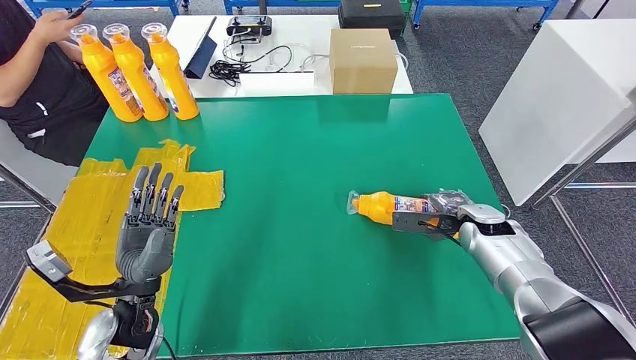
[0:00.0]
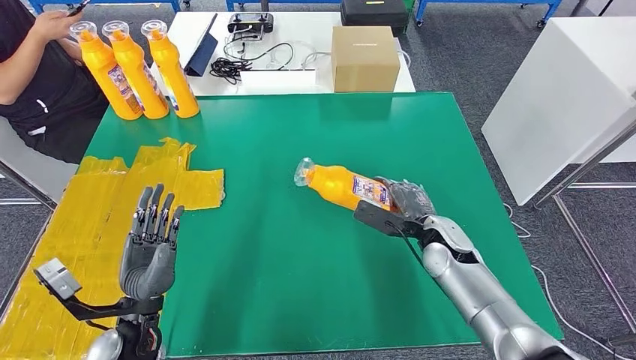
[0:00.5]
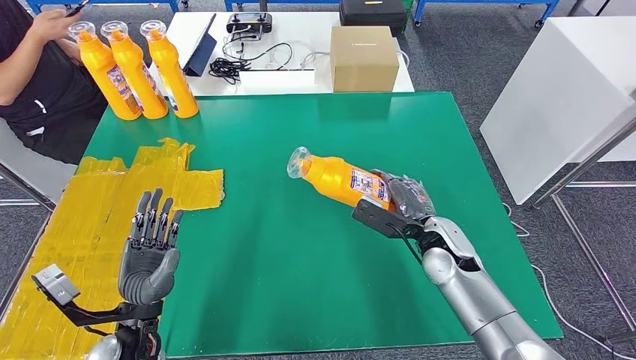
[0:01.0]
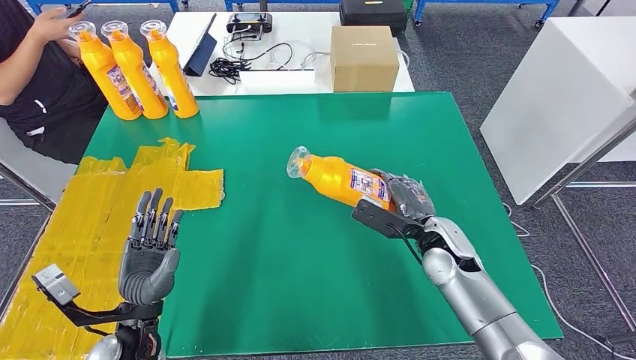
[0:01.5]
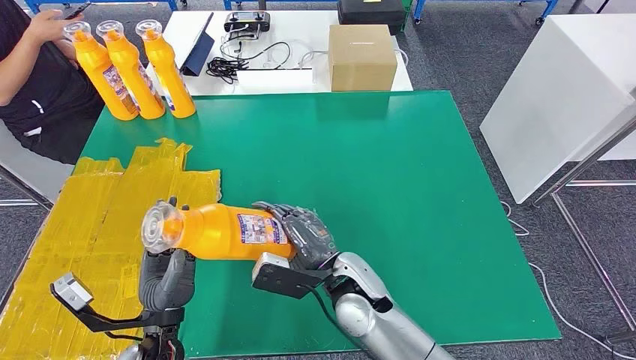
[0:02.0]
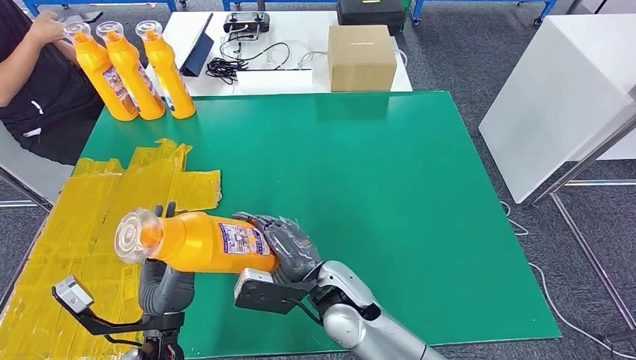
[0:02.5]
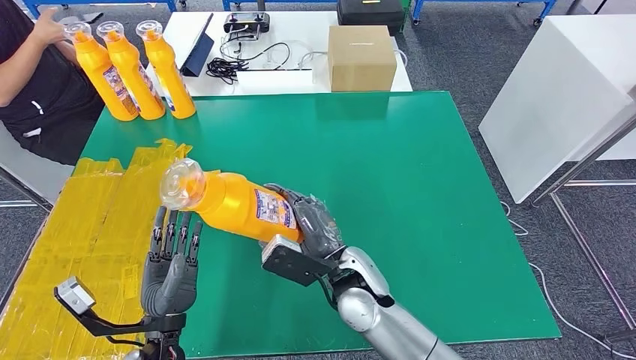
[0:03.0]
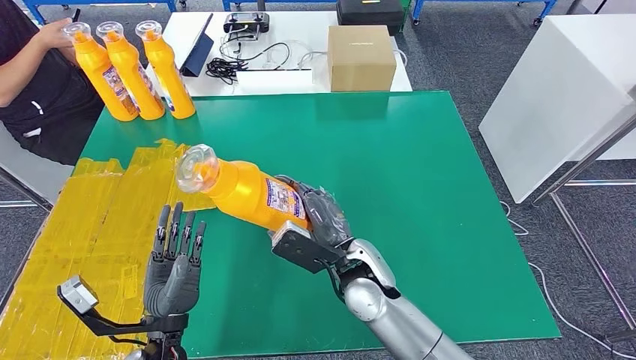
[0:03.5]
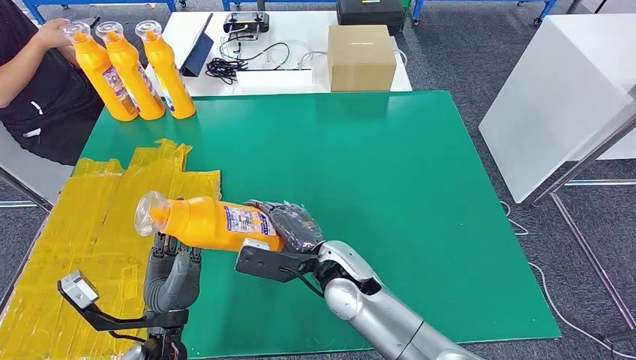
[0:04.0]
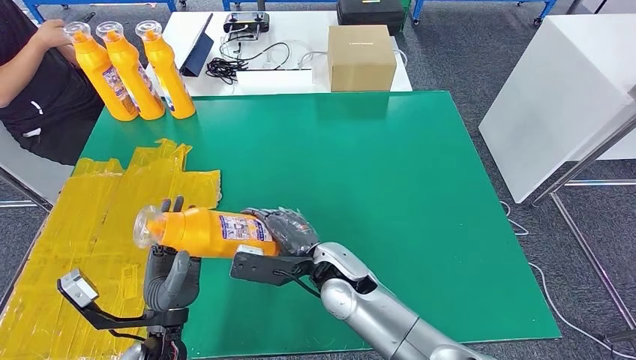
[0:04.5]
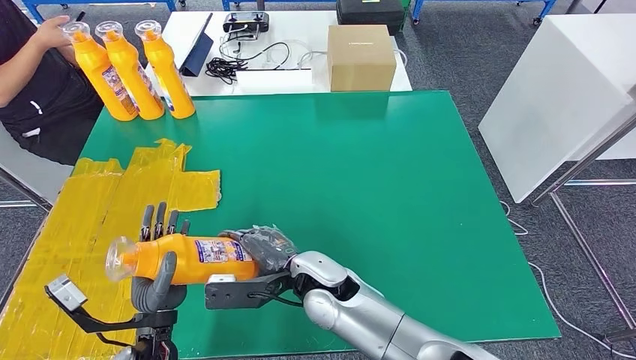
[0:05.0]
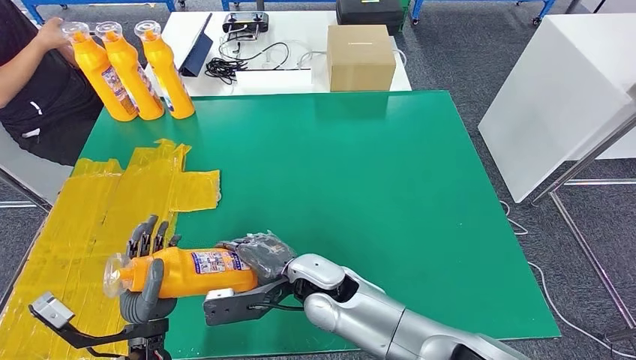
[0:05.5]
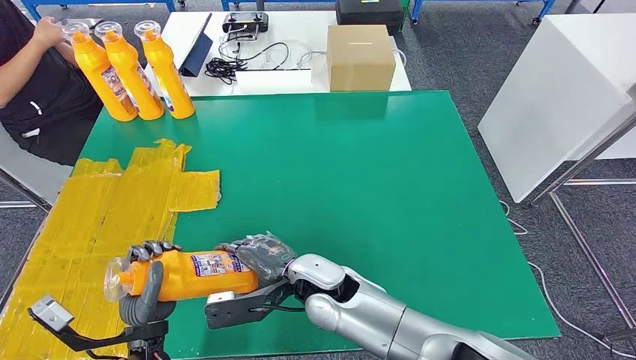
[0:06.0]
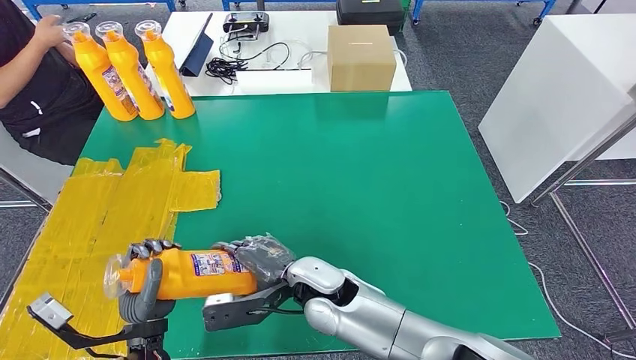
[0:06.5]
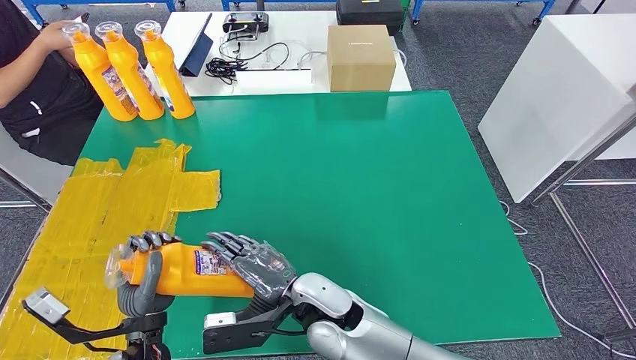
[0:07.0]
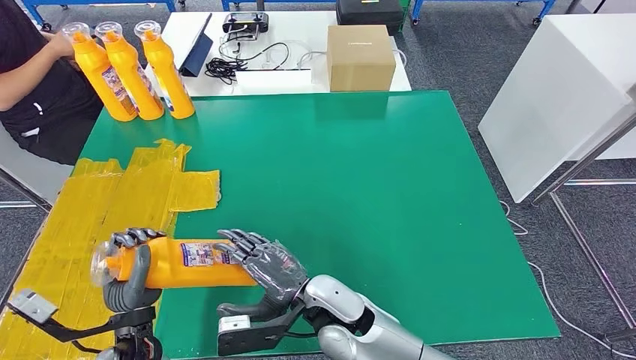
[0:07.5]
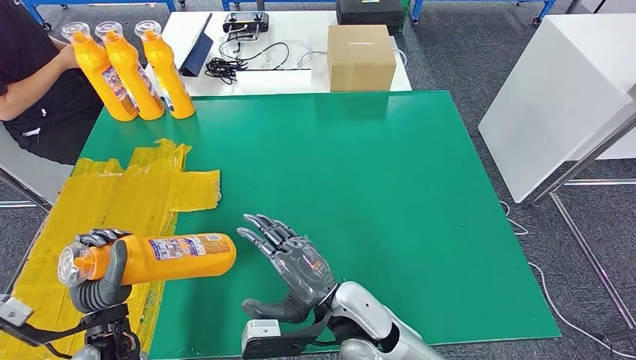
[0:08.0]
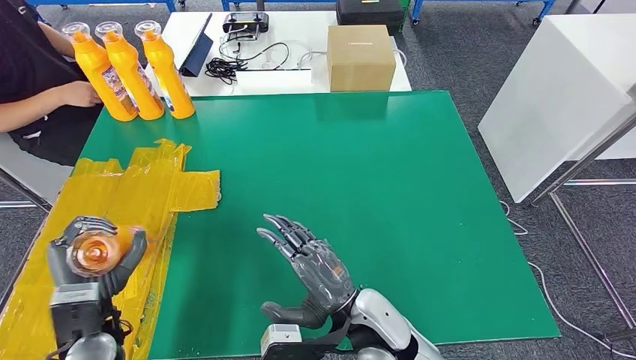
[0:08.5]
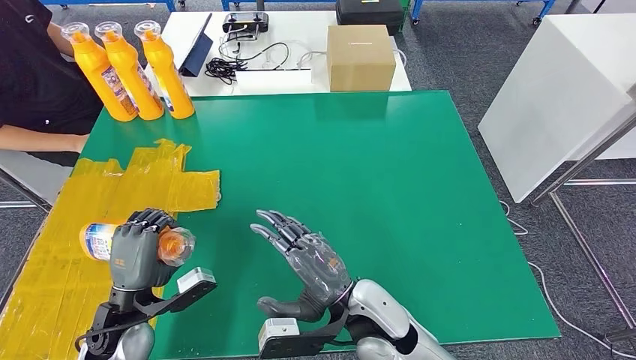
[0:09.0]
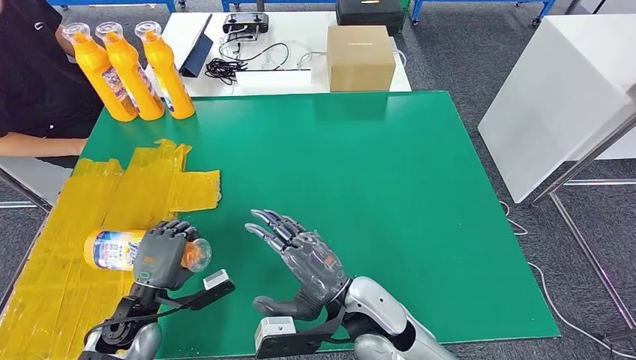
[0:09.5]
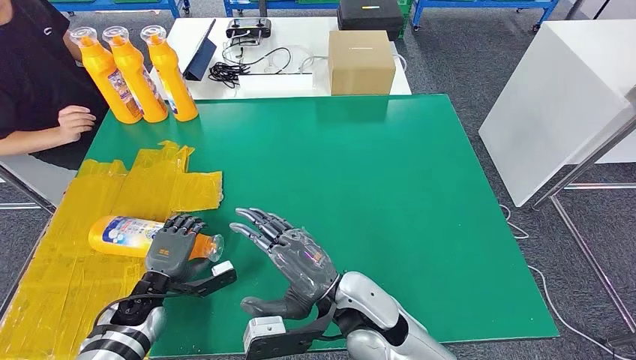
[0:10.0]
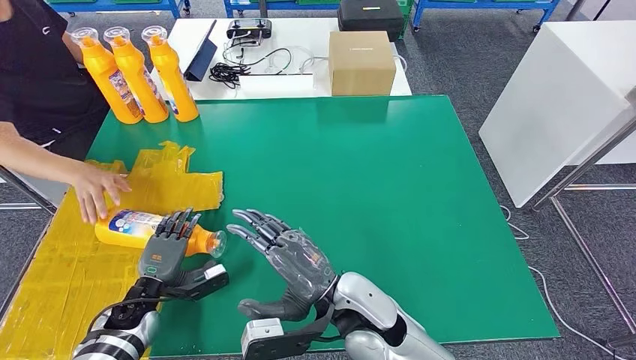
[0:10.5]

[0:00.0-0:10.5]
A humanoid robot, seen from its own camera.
Step, 0:00.0 to 0:03.0: Pick up the fast-moving consumer goods bottle from the table.
Step, 0:03.5 to 0:10.5: Flip the fast-moving consumer goods bottle to the front side.
0:02.0 to 0:04.0: The hands move only a little.
0:04.0 to 0:06.5: The right hand shifts by roughly 5 cm.
0:06.5 to 0:08.5: The left hand heads to the left, covering some 5 cm. Meanwhile the right hand heads to the right and backward, covering approximately 10 cm.
